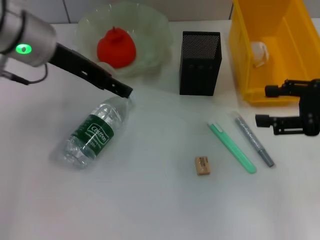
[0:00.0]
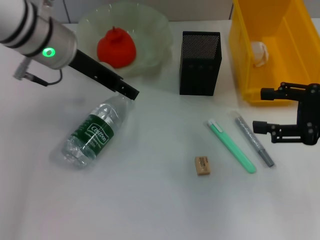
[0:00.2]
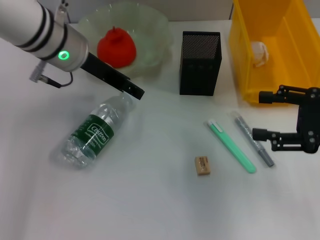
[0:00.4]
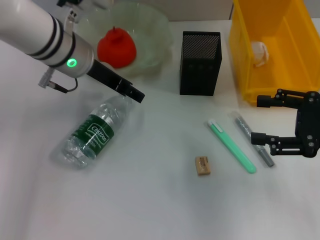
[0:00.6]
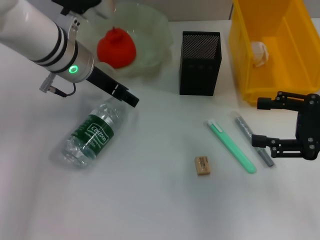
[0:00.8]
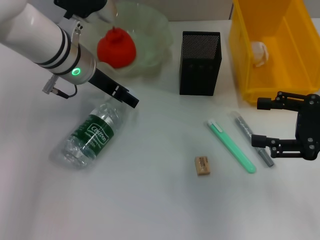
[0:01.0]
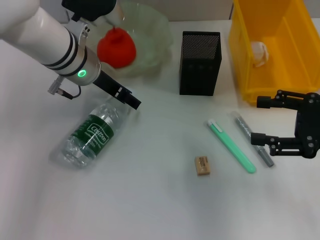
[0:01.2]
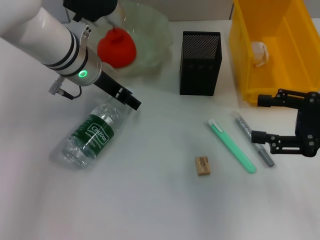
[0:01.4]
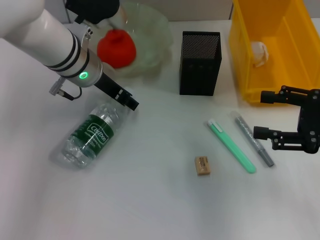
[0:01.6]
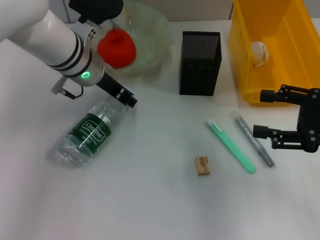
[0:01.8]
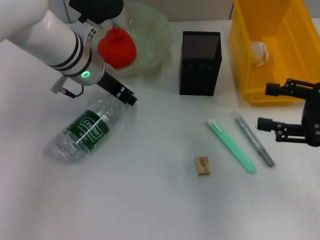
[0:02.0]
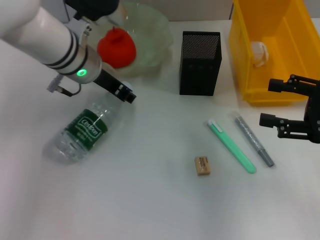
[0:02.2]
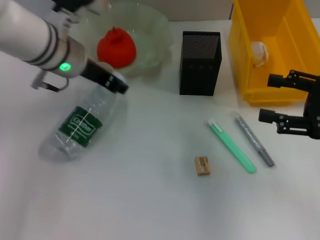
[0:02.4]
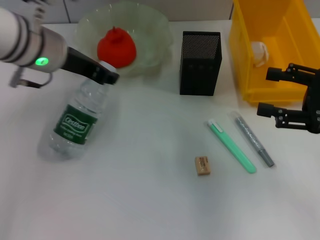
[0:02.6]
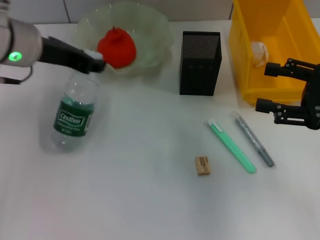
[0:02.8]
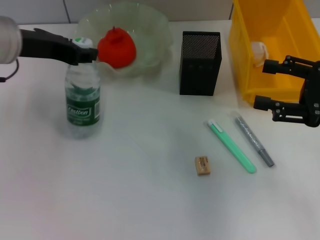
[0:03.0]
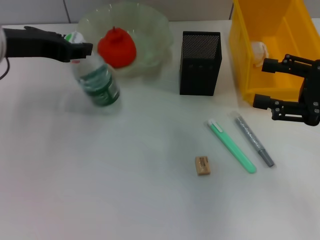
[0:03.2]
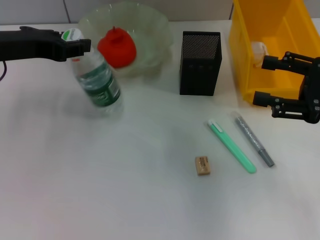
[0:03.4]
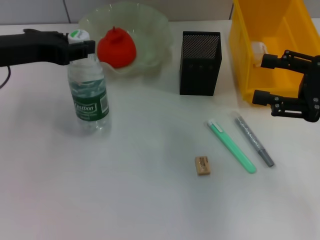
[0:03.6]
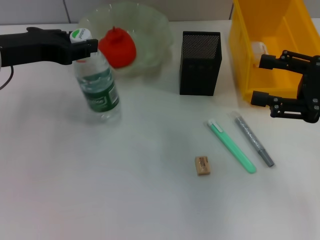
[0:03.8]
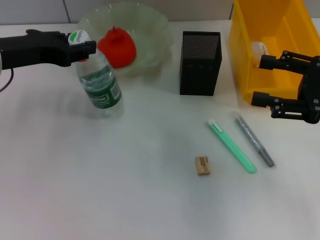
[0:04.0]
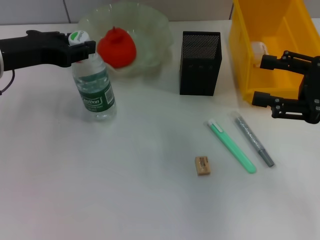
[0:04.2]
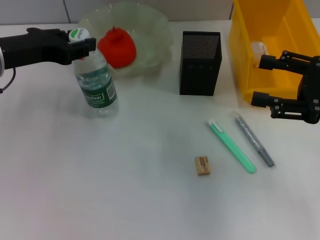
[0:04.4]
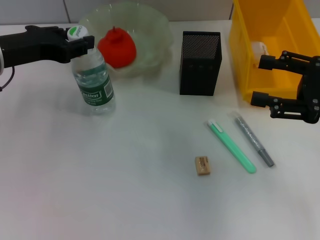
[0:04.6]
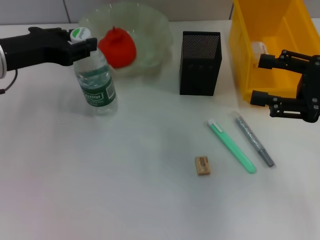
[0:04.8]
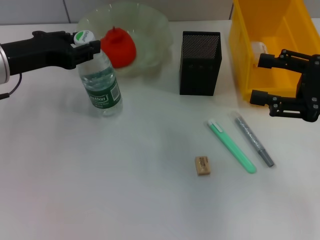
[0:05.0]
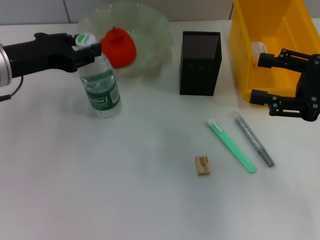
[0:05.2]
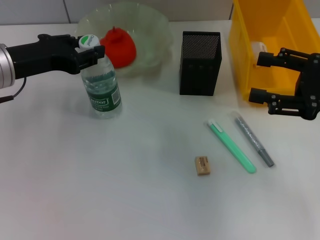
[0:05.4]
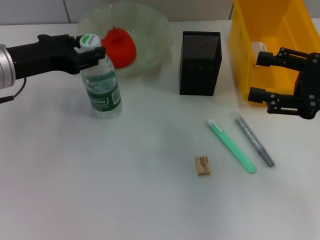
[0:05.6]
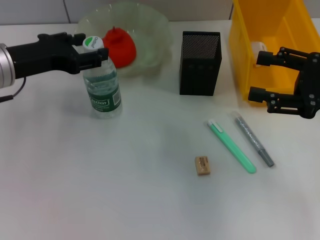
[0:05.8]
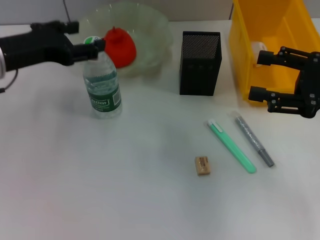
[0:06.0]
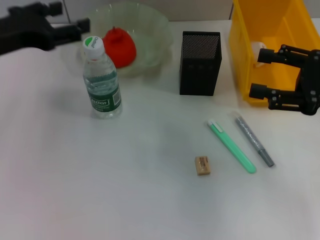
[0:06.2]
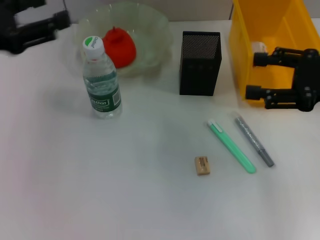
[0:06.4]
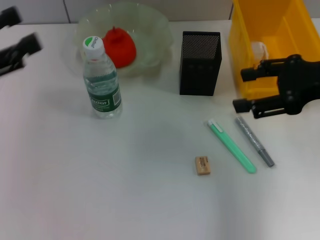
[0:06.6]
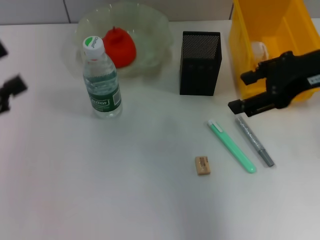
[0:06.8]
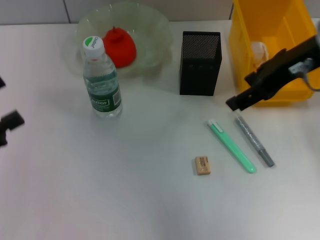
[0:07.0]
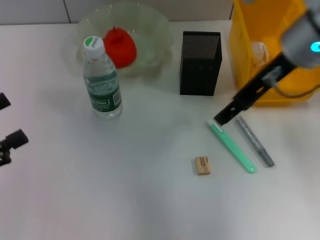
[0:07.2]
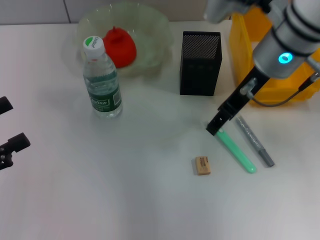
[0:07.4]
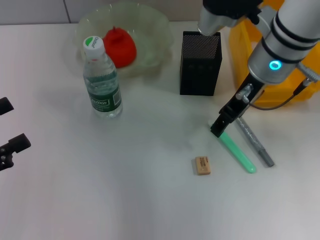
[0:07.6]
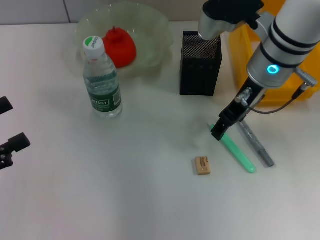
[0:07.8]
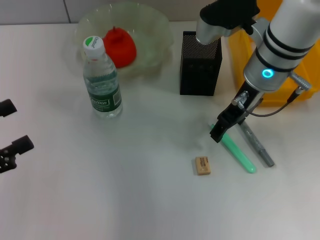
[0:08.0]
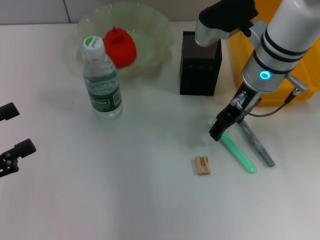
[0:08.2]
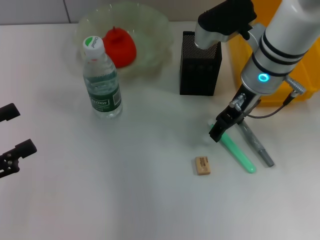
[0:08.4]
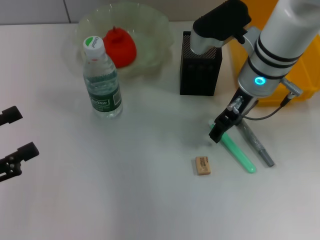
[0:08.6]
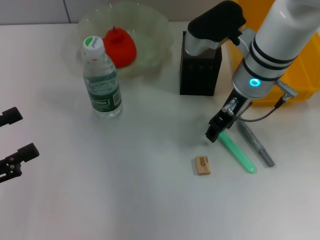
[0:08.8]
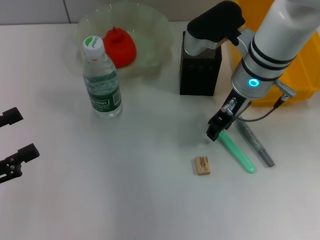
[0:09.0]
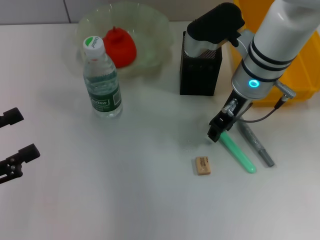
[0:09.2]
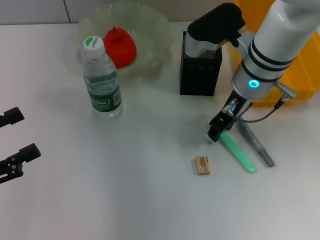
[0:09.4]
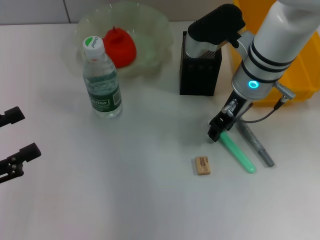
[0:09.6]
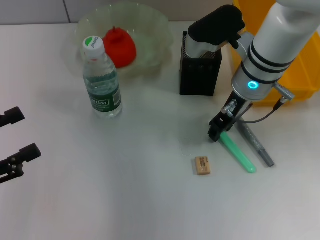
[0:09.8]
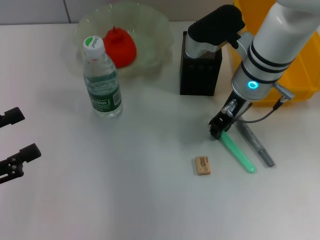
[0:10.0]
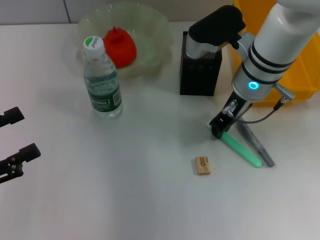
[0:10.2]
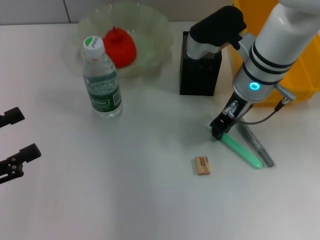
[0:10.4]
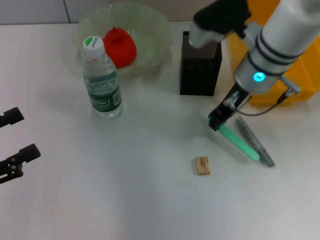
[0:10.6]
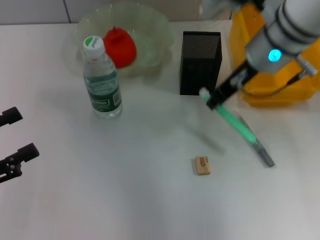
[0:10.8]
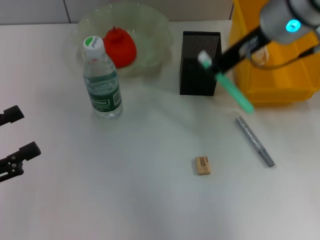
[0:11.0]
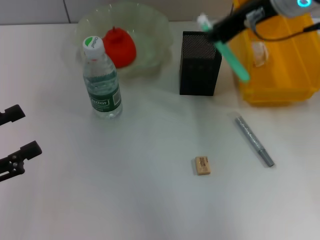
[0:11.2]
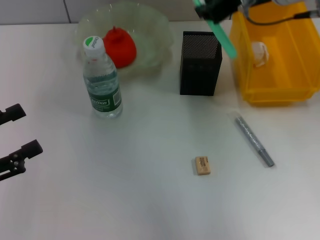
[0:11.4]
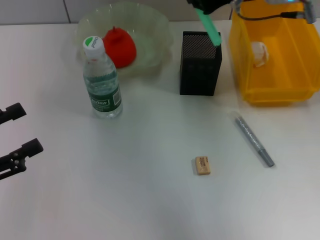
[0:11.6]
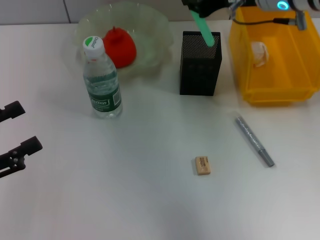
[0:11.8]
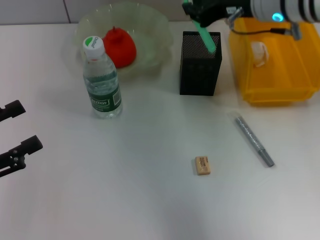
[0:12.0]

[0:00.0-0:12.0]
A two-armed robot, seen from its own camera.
Step, 0:00.0 to 0:02.0: Grab the water bottle with the left hand.
Step, 0:02.2 to 0:05.8: Place the water bottle on the table with the left hand.
Step, 0:06.2 to 0:10.2: Grab the blue utility knife with the right hand.
0:00.0 to 0:01.6: The left gripper moves downward, about 10 cm.
0:01.6 to 0:03.0: The left gripper goes some 15 cm to the left, upward and backward, and closes up.
0:03.0 to 0:04.4: There are only small adjustments of the grippers.
0:04.4 to 0:06.0: The left gripper opens up.
0:06.0 to 0:07.6: The left gripper moves backward and to the left, about 20 cm. Meanwhile the right gripper travels to the left and forward by approximately 20 cm.
0:07.6 to 0:09.0: The right gripper closes its fingers.
0:09.0 to 0:10.4: The right gripper closes its fingers.
0:10.4 to 0:12.0: The right gripper is displaced upward by approximately 10 cm.

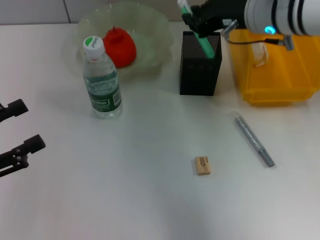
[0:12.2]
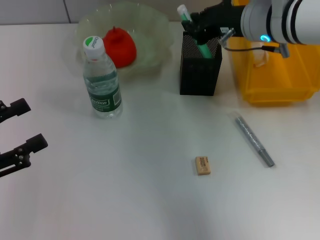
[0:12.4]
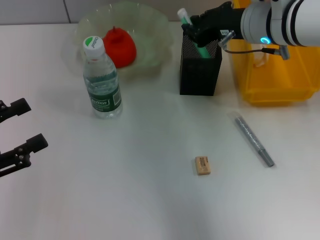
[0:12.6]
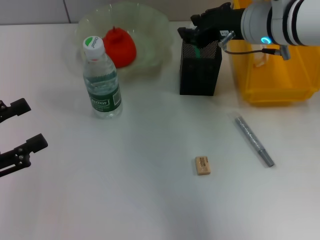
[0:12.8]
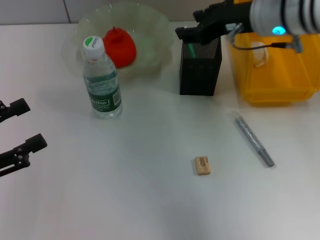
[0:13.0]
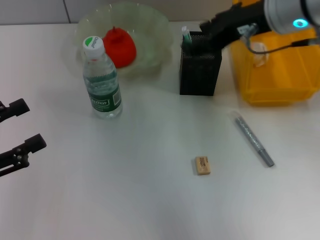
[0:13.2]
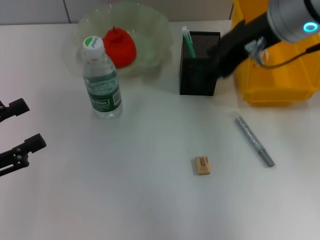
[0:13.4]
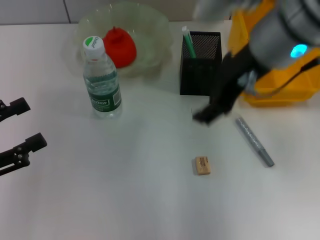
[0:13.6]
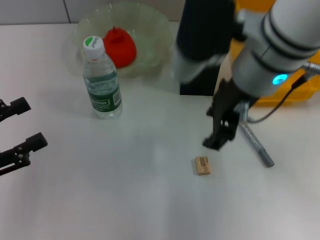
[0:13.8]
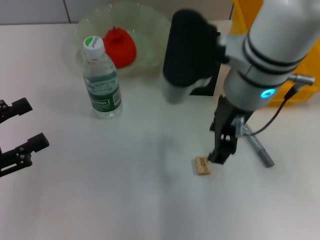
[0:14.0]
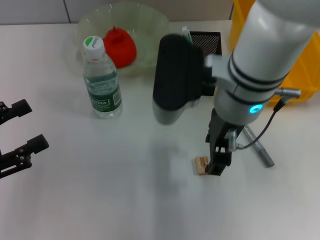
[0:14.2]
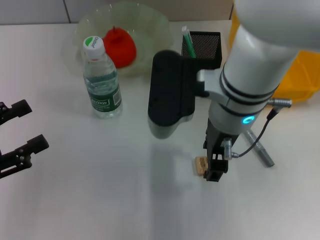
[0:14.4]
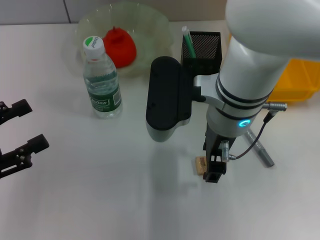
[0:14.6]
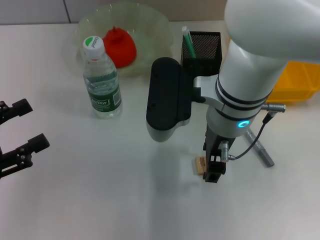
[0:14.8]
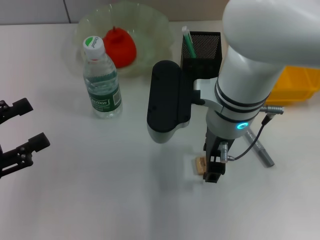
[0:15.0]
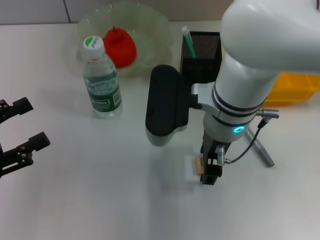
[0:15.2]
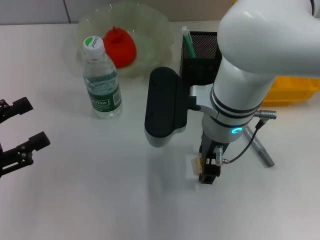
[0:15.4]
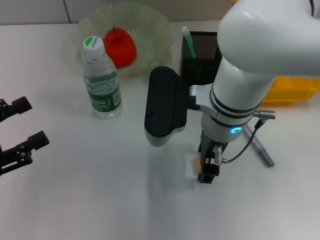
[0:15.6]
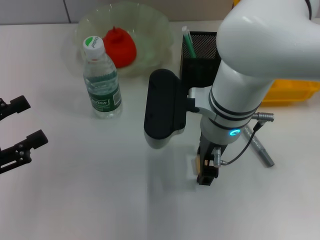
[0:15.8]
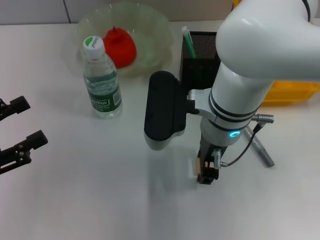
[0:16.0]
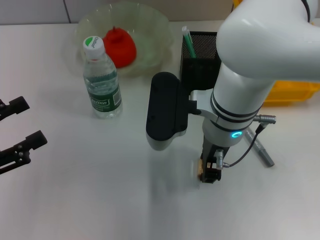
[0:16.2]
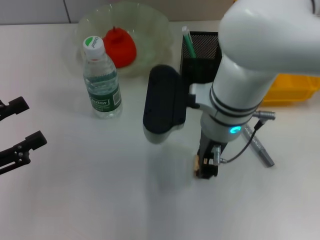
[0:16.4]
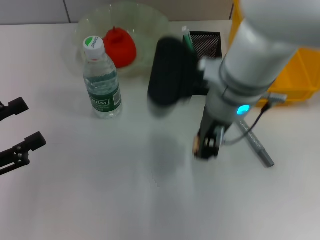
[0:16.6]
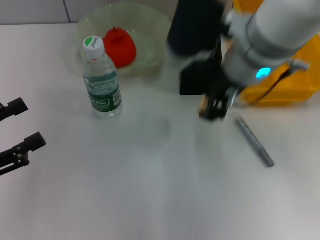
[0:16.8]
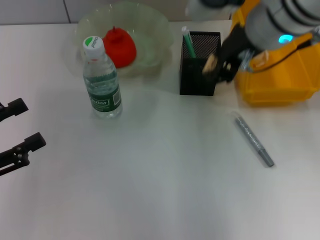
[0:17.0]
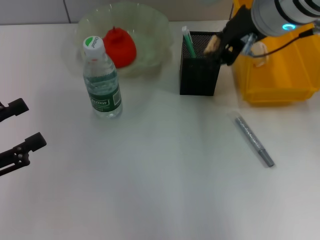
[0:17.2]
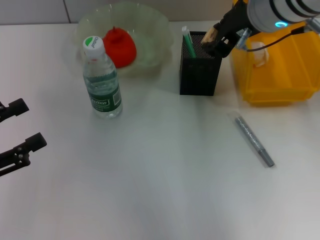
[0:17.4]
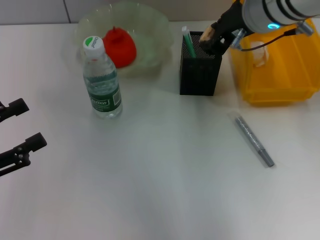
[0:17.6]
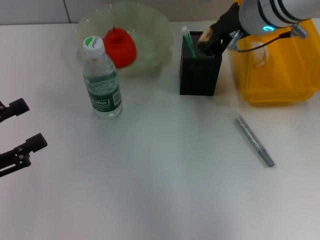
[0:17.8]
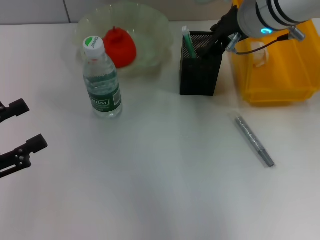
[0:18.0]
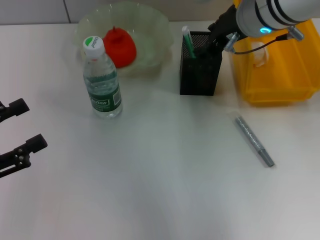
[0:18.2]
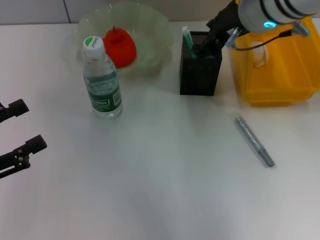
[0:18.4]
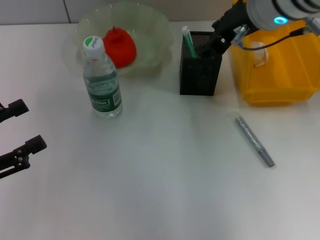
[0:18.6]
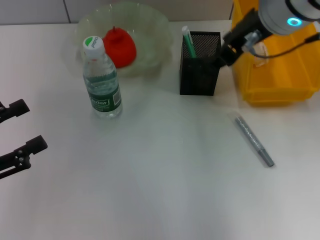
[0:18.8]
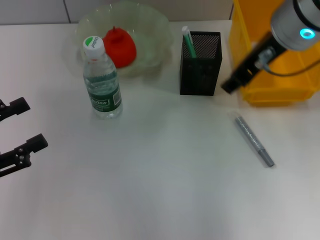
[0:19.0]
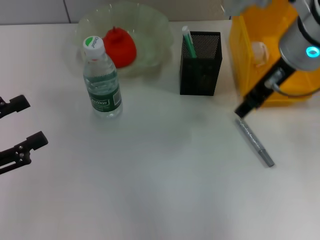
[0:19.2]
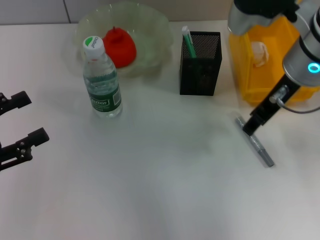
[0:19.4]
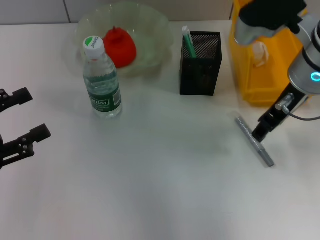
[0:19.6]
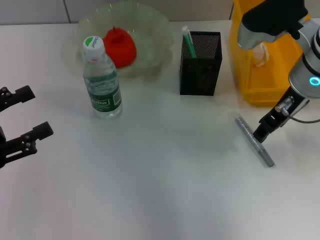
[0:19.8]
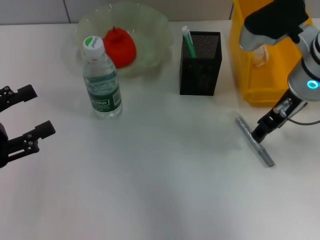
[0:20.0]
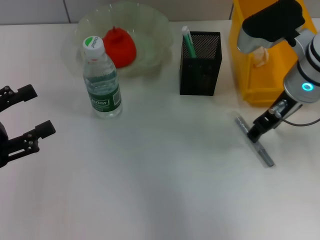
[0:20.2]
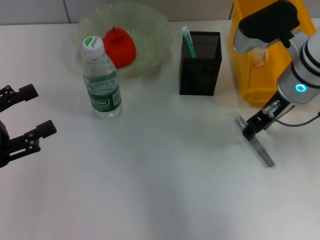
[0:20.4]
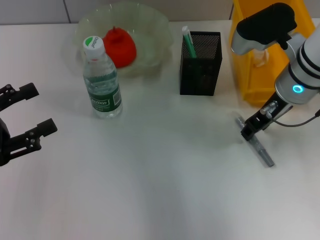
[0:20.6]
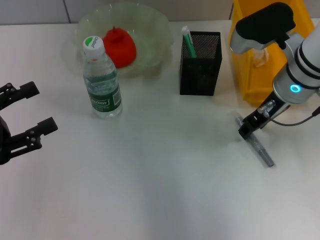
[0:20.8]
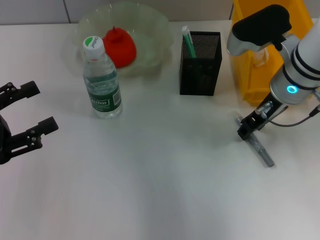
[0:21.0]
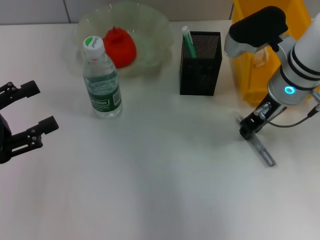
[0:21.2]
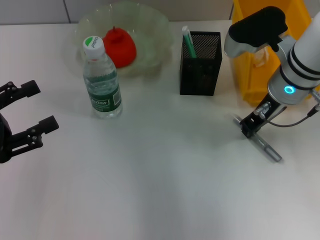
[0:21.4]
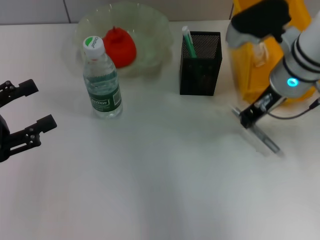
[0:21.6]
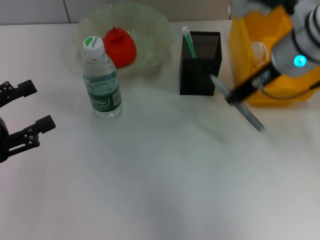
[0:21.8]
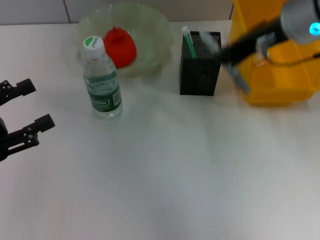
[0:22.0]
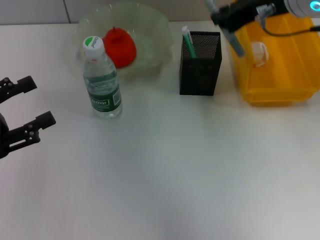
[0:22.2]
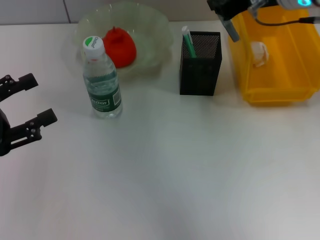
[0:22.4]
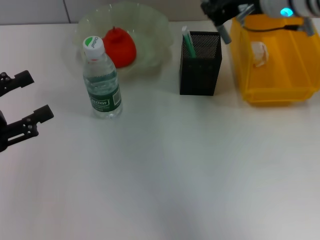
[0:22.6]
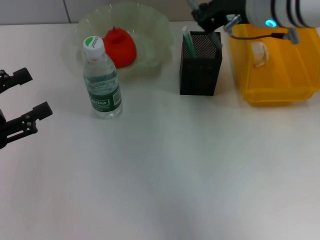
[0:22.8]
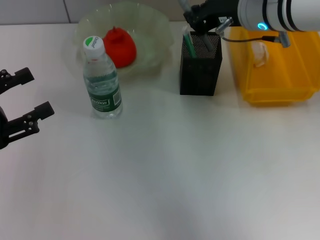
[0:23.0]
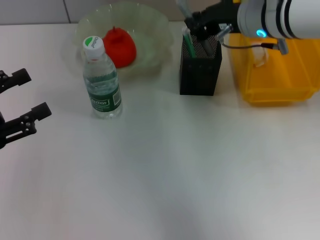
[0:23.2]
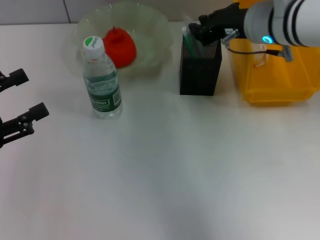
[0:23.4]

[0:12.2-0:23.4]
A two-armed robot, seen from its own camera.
Step, 0:13.2 to 0:16.0: Grab the eraser with the right hand.
Step, 0:16.2 to 0:18.2: Put the eraser into the pen holder with the right hand.
Step, 0:18.4 to 0:21.2: Grab the gray glue with the right hand.
0:12.2 to 0:13.8: The right gripper travels backward and to the left by some 10 cm, and opens.
0:13.8 to 0:15.4: The right gripper travels downward by approximately 10 cm.
0:15.4 to 0:17.0: The right gripper heads upward and to the right, covering about 10 cm, and closes.
0:18.6 to 0:20.2: The right gripper moves downward and to the right, approximately 10 cm.
0:20.2 to 0:21.8: The right gripper is displaced upward by roughly 5 cm, and closes up.
